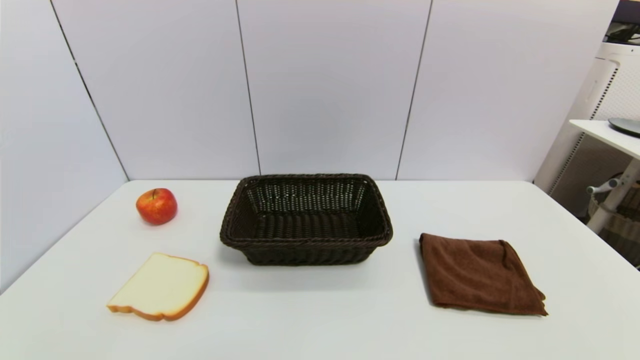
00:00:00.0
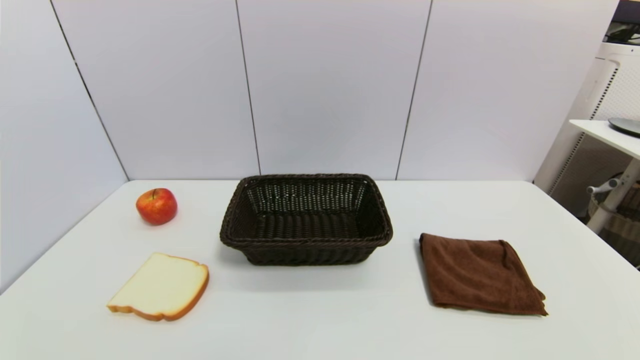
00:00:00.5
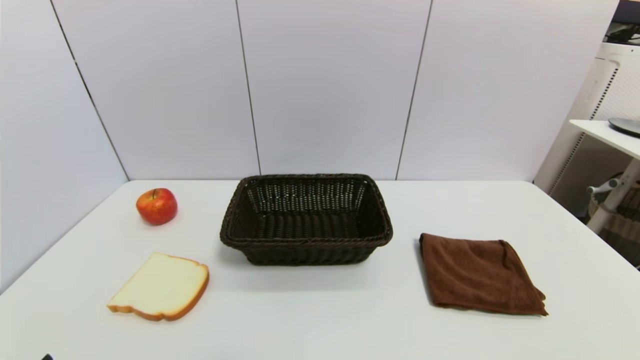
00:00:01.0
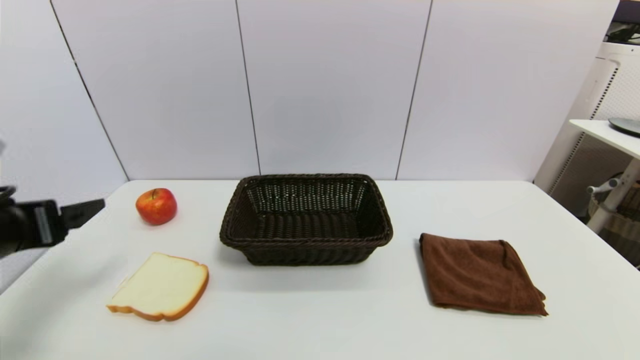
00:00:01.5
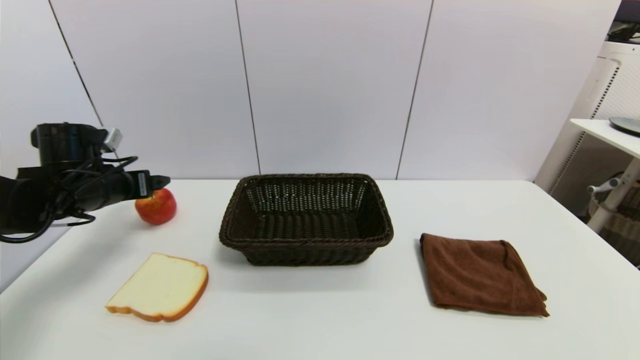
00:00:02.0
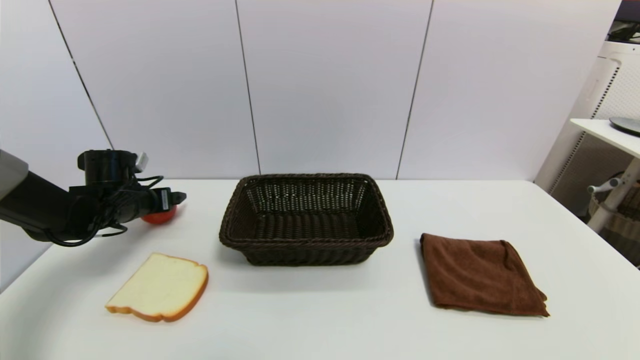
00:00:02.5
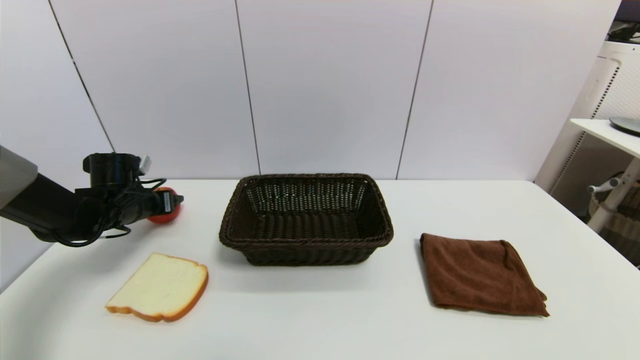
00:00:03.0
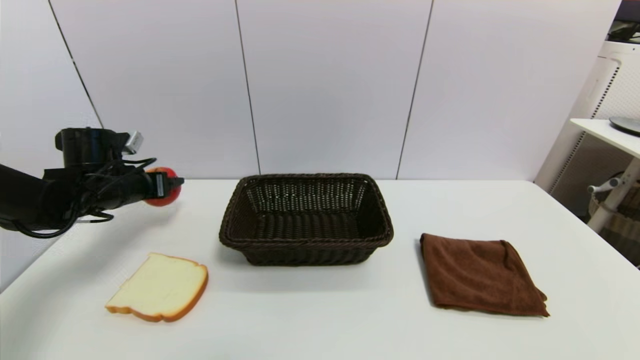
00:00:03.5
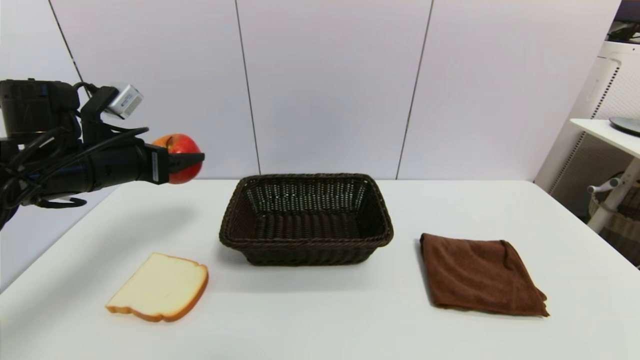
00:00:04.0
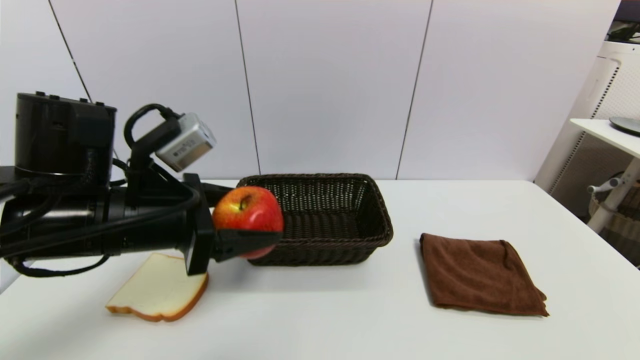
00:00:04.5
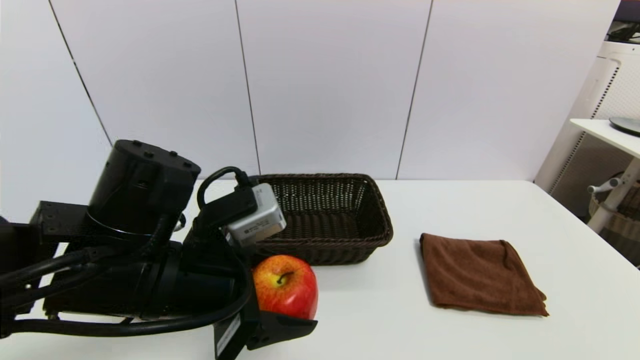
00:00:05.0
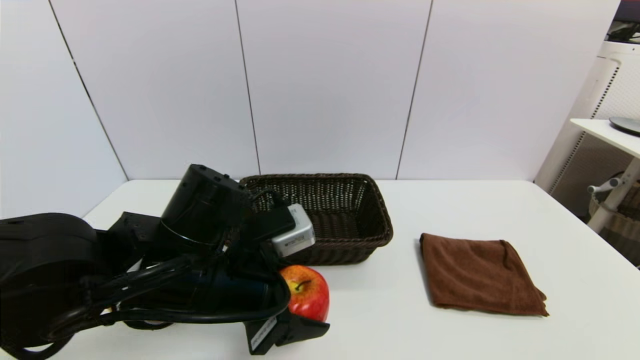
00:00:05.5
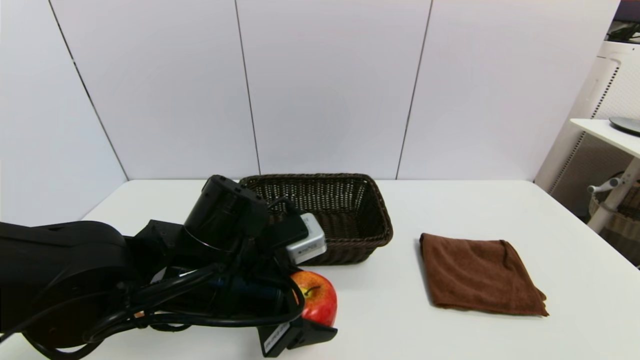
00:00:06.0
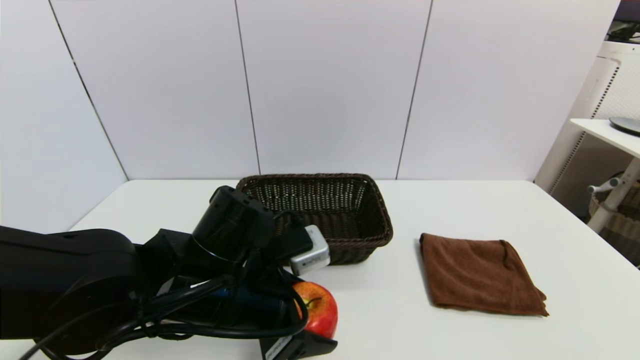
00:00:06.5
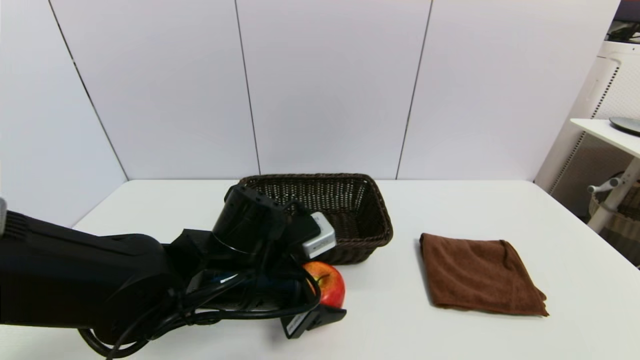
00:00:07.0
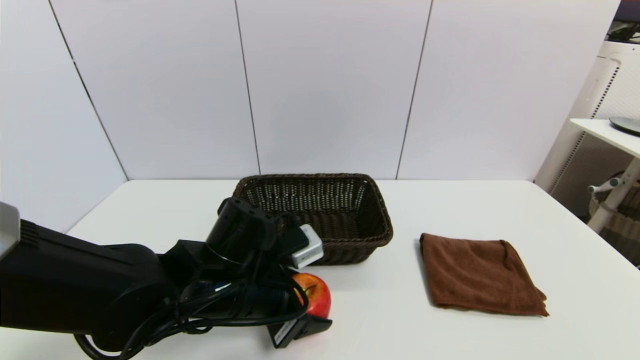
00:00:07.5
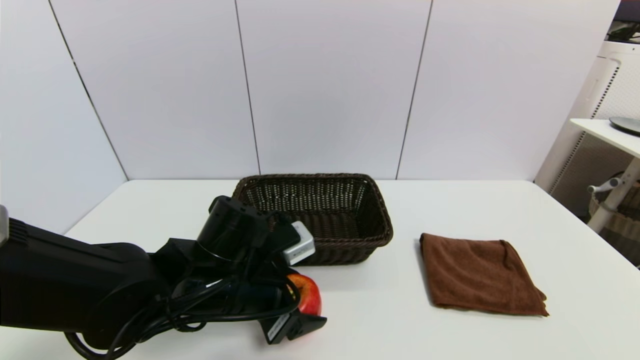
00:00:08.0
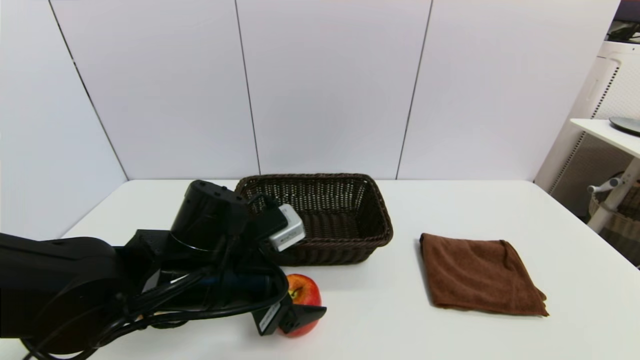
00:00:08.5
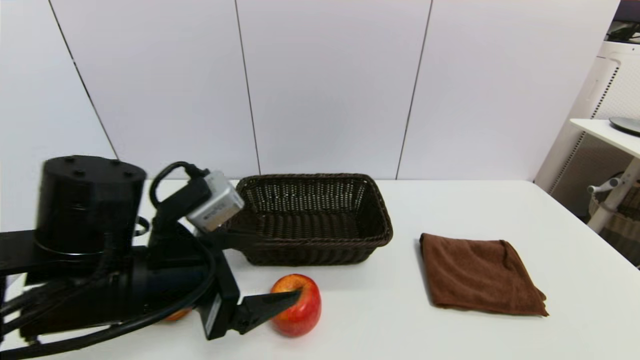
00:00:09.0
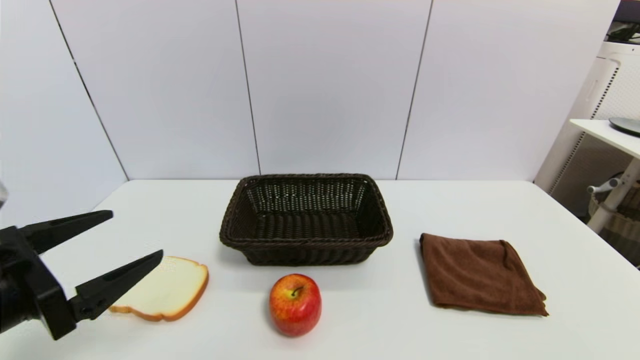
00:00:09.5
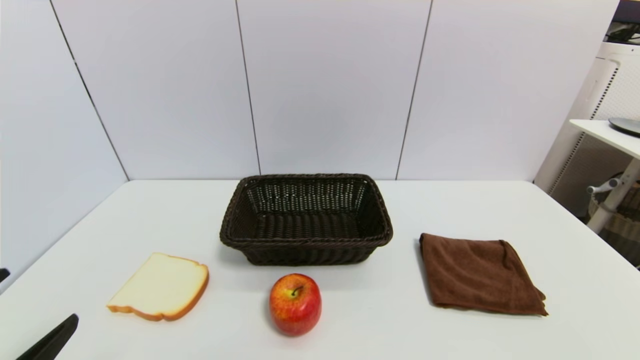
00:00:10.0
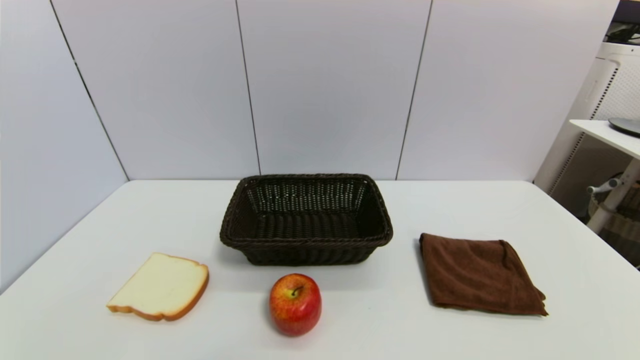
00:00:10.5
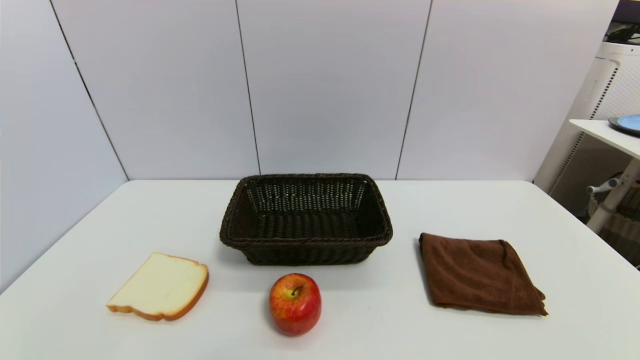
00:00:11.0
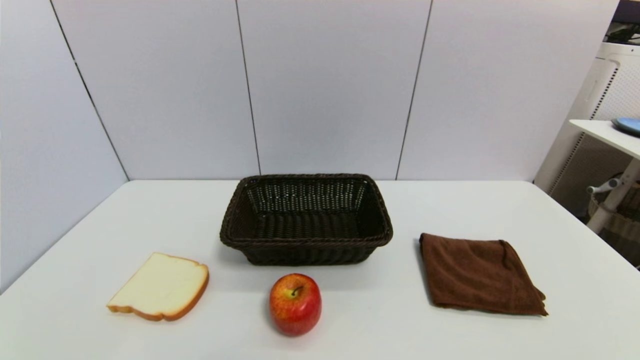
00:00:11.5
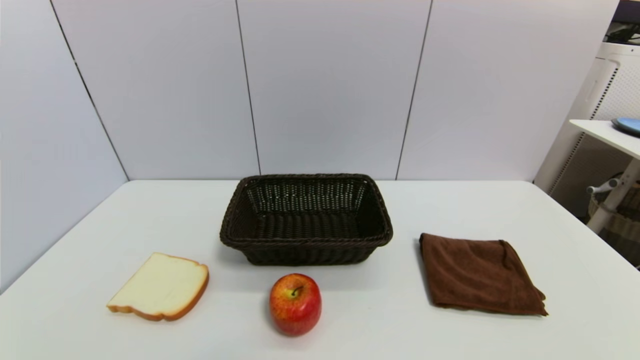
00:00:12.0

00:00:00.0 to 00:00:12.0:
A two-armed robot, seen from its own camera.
Task of the whole recording: put the apple in the designated position.
Step, 00:00:01.0 to 00:00:03.0: Grasp the apple with left gripper.
Step, 00:00:03.5 to 00:00:08.5: Place the apple on the table with left gripper.
00:00:00.0 to 00:00:02.0: The left gripper moves forward, about 35 cm.
00:00:02.0 to 00:00:04.0: The left gripper goes some 10 cm upward, to the right and backward, and closes.
00:00:04.0 to 00:00:06.0: The left gripper shifts roughly 20 cm to the right, backward and downward.
00:00:06.0 to 00:00:08.0: The left gripper opens.
00:00:08.0 to 00:00:10.0: The left gripper travels to the left and backward by about 25 cm, and opens.
00:00:10.0 to 00:00:12.0: The left gripper moves downward, about 10 cm.
